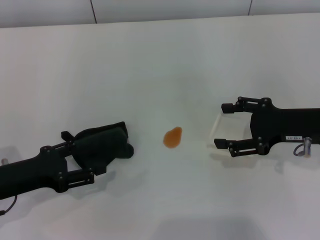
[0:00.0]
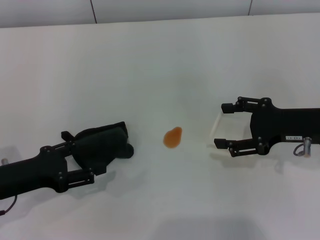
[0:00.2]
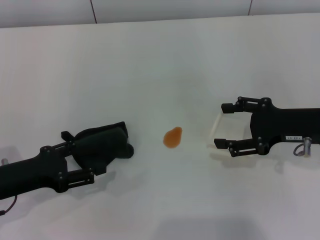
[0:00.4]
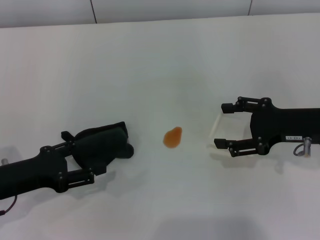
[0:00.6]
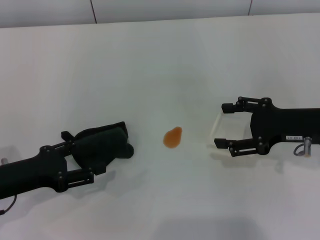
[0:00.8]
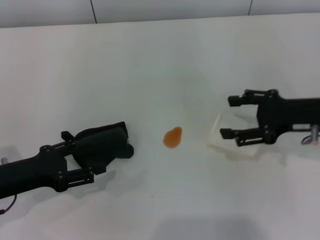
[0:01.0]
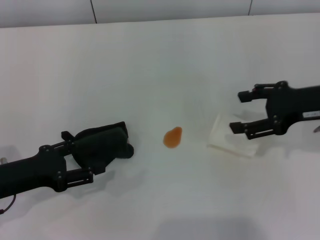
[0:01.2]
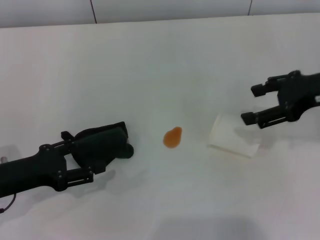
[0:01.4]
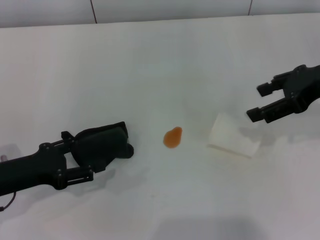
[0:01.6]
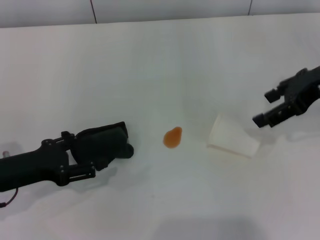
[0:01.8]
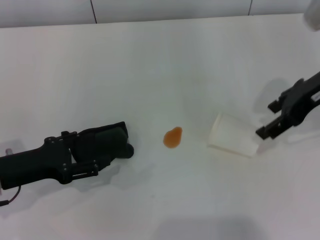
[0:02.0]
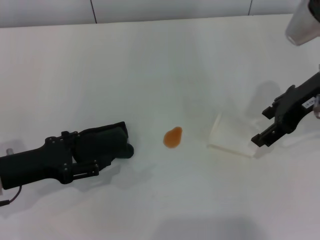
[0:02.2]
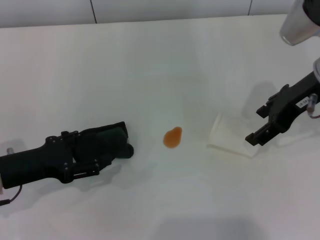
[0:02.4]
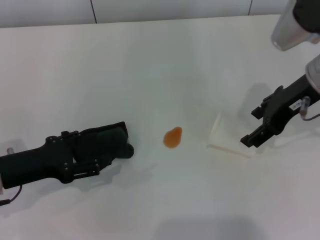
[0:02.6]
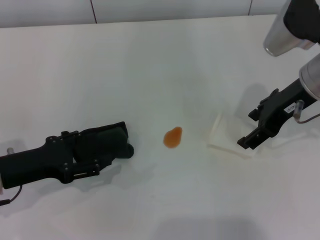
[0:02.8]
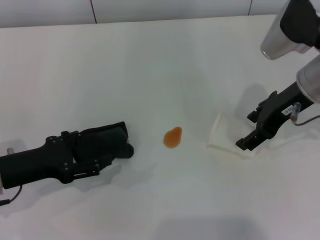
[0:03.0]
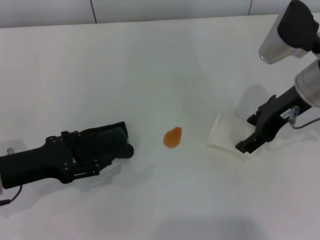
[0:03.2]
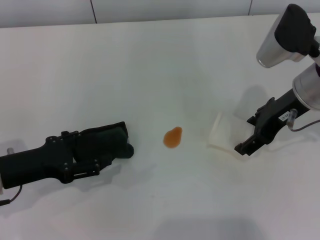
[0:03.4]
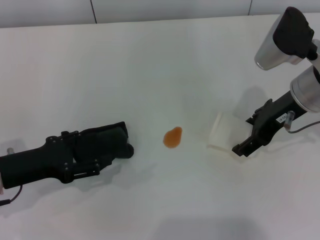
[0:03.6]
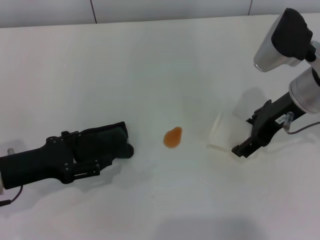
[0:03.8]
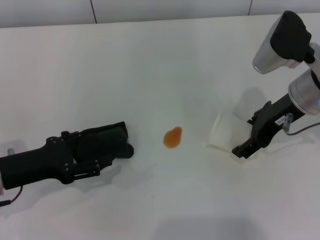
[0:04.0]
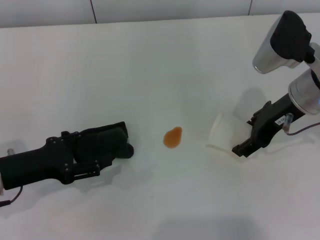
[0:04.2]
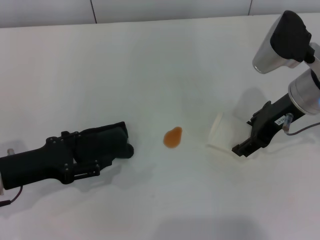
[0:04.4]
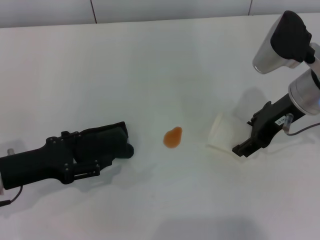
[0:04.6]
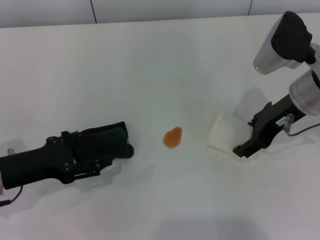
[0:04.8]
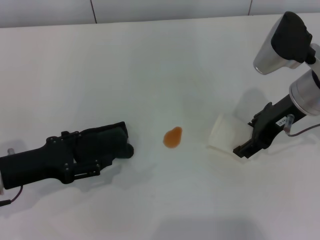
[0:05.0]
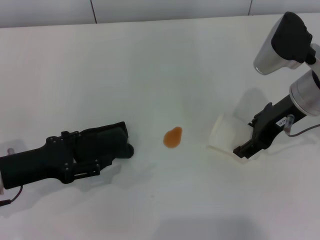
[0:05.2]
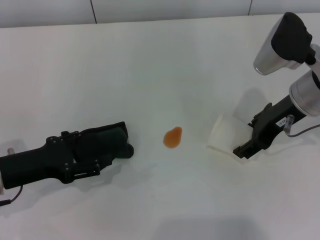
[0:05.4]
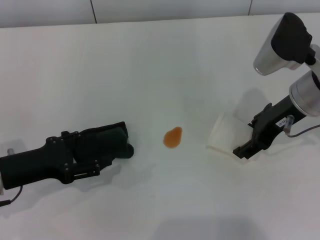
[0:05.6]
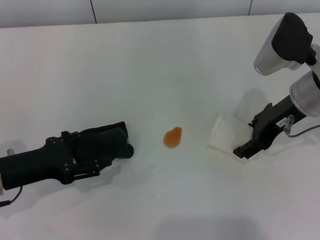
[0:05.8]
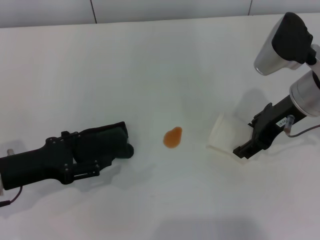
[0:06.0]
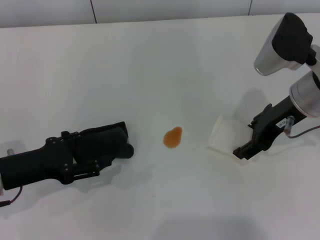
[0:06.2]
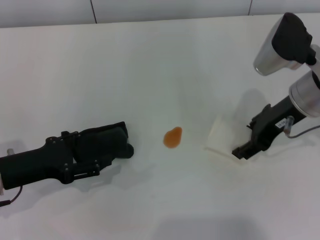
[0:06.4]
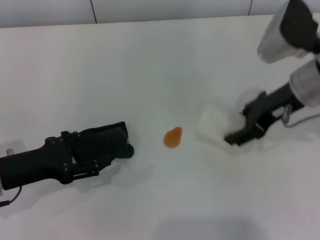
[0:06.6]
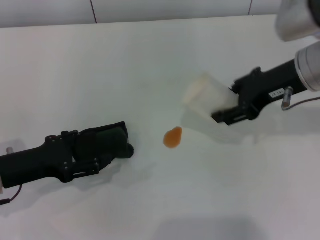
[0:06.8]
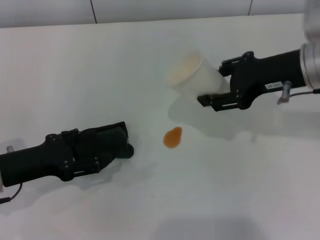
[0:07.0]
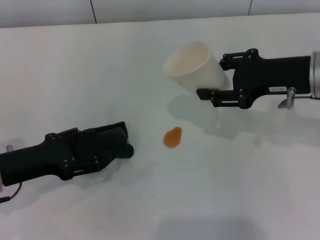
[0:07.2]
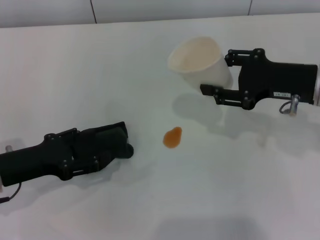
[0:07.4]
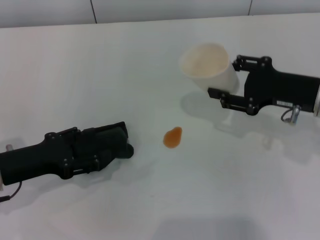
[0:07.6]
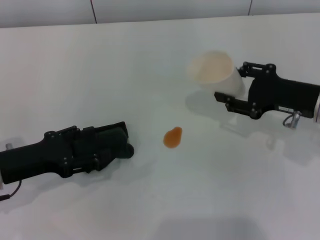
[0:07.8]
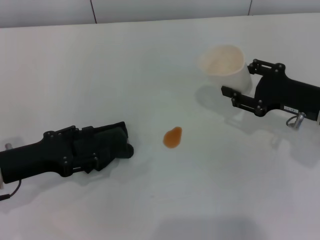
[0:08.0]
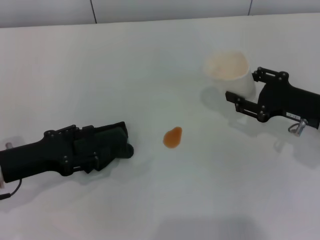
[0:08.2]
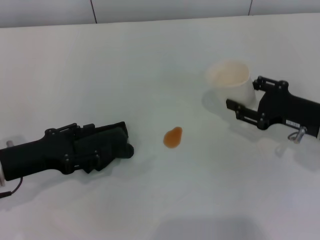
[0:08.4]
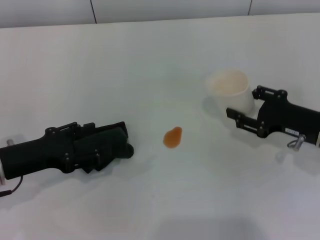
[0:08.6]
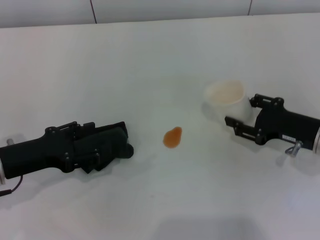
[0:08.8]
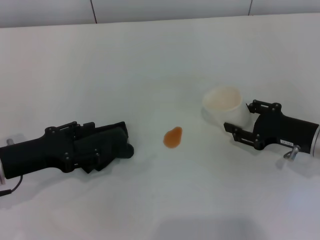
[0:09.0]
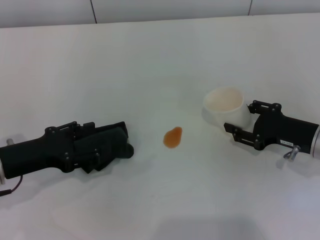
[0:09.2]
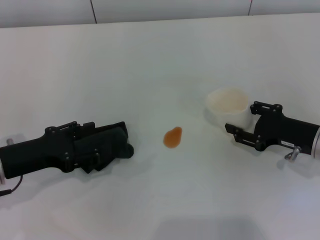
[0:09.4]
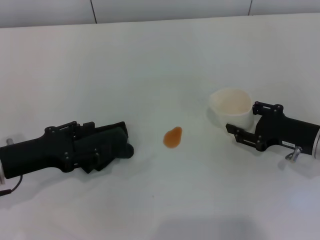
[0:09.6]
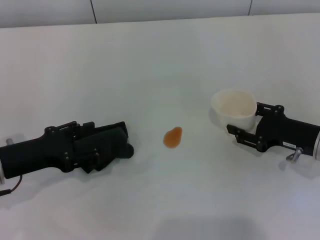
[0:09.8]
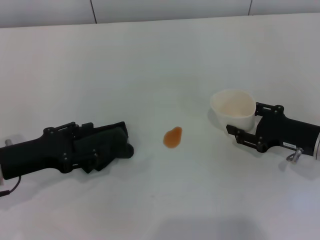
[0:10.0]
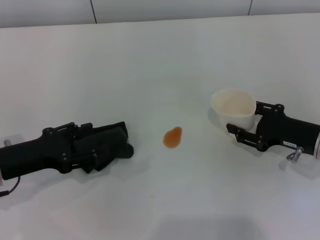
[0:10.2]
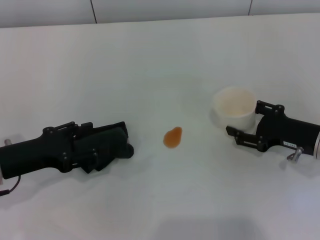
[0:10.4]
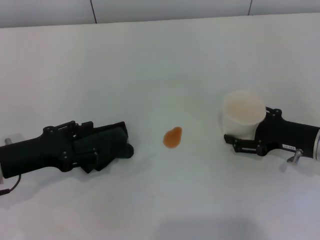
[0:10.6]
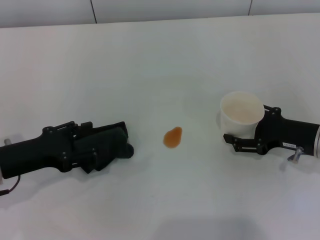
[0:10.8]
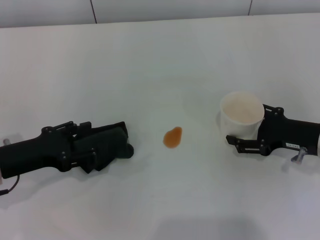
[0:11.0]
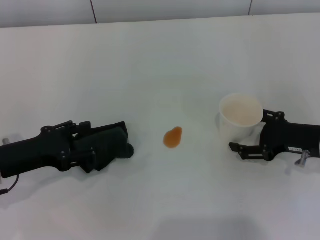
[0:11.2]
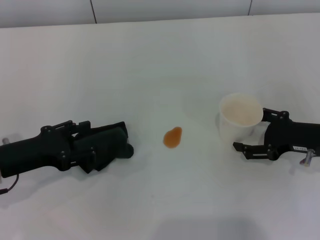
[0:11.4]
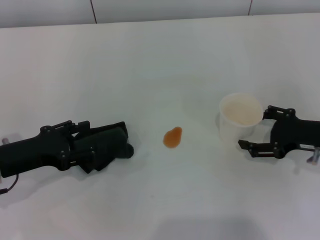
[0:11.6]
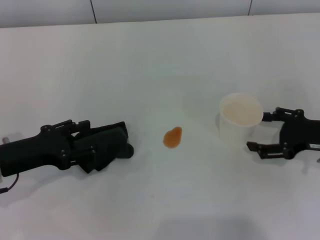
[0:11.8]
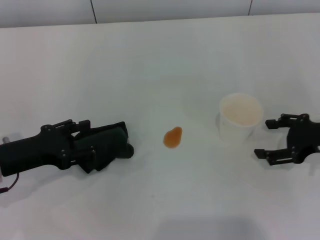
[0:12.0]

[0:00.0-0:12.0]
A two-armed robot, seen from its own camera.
Step, 0:00.0 to 0:04.4: Grasp the paper cup with the right gripper.
Step, 0:04.8 to 0:11.8: Stand the paper cup upright with the right gripper.
0:00.0 to 0:01.6: The right gripper goes roughly 10 cm upward.
0:01.6 to 0:03.0: The right gripper shifts some 5 cm to the left.
0:03.0 to 0:04.4: The right gripper closes.
0:04.4 to 0:06.0: The two grippers keep their place.
0:06.0 to 0:07.6: The right gripper changes place by some 5 cm, and closes.
0:07.6 to 0:09.0: The right gripper shifts roughly 10 cm downward.
0:09.0 to 0:10.4: Both grippers stay about where they are.
0:10.4 to 0:12.0: The right gripper shifts roughly 5 cm upward, and opens.

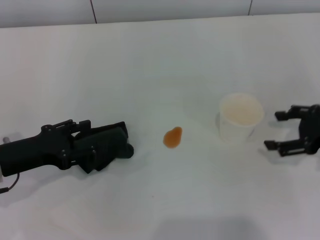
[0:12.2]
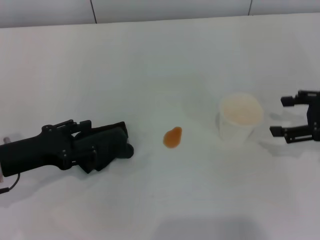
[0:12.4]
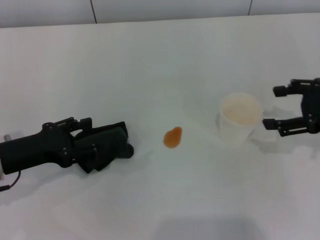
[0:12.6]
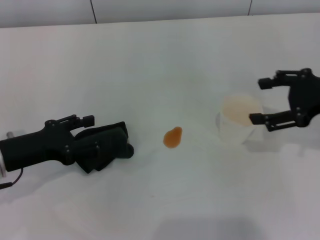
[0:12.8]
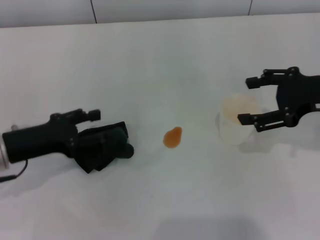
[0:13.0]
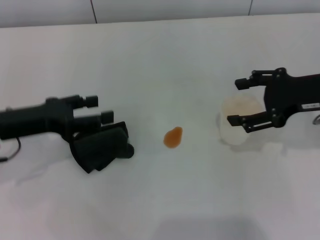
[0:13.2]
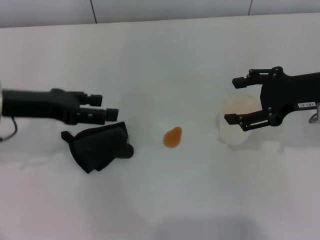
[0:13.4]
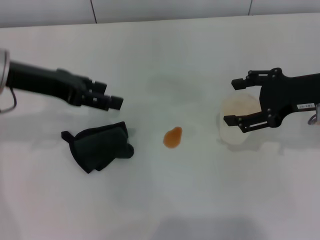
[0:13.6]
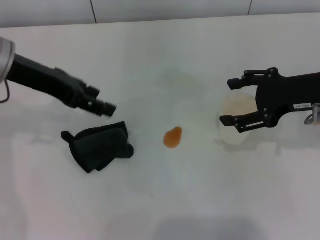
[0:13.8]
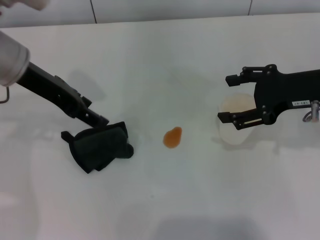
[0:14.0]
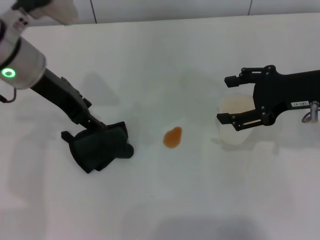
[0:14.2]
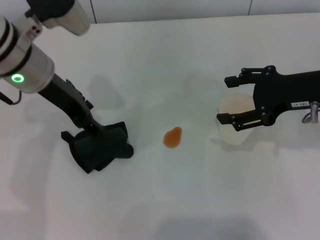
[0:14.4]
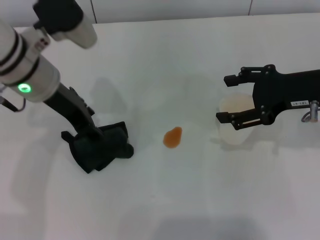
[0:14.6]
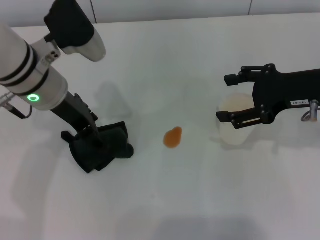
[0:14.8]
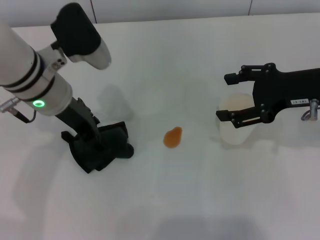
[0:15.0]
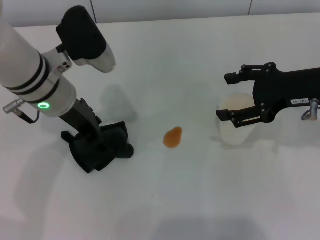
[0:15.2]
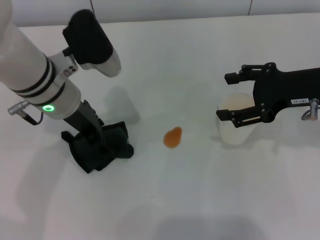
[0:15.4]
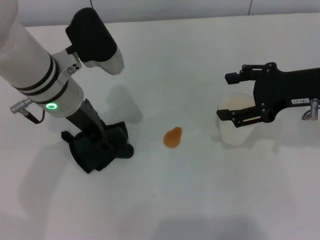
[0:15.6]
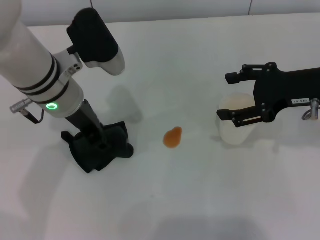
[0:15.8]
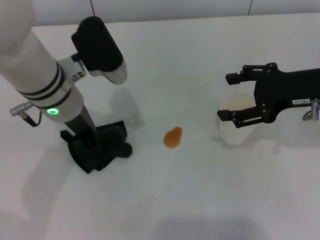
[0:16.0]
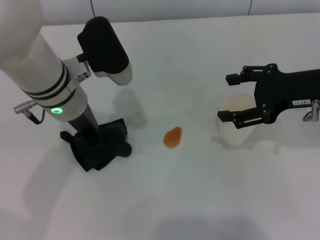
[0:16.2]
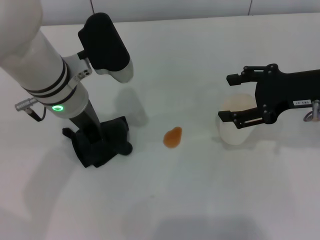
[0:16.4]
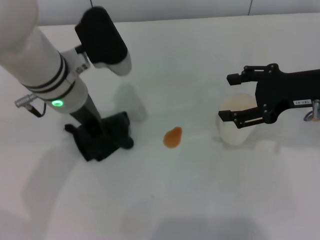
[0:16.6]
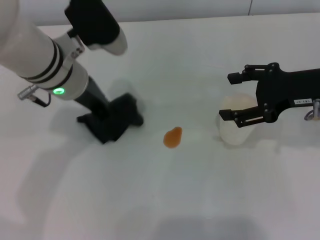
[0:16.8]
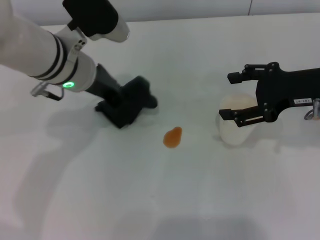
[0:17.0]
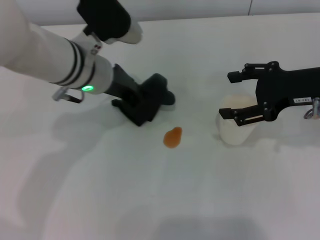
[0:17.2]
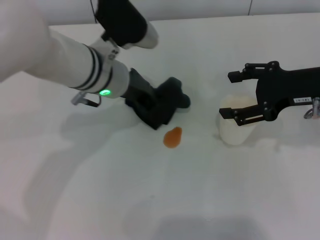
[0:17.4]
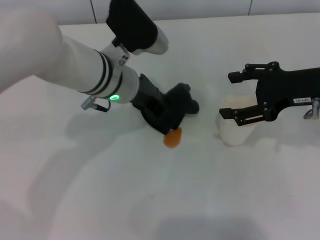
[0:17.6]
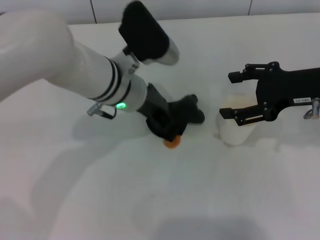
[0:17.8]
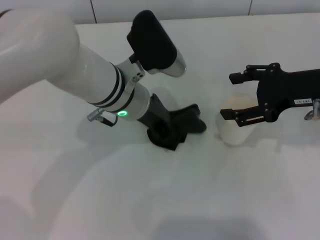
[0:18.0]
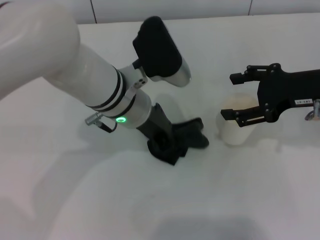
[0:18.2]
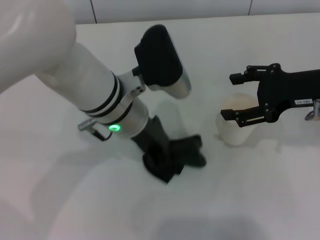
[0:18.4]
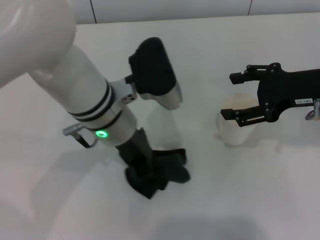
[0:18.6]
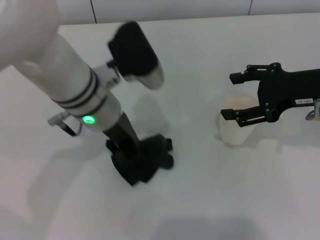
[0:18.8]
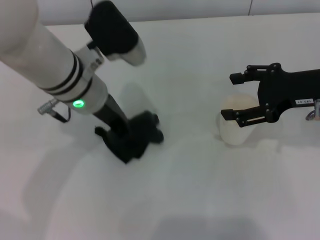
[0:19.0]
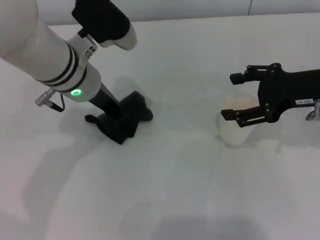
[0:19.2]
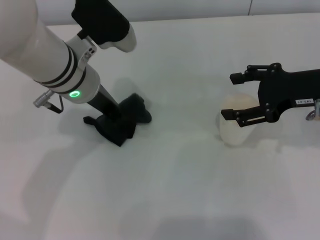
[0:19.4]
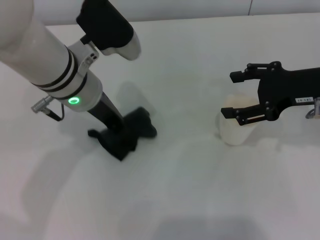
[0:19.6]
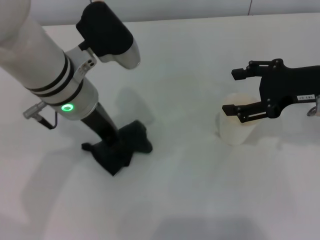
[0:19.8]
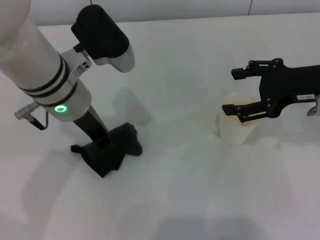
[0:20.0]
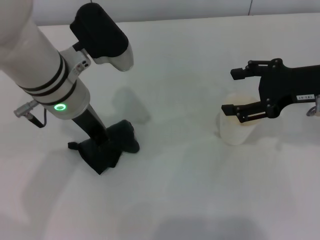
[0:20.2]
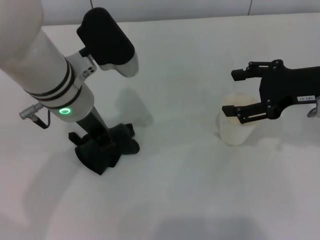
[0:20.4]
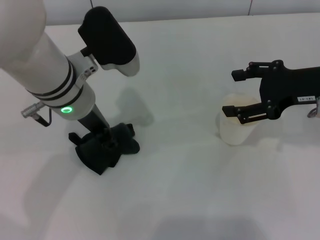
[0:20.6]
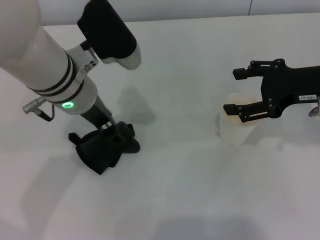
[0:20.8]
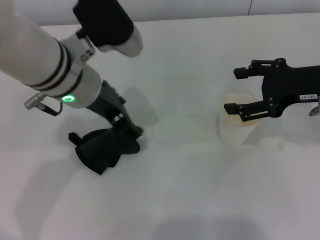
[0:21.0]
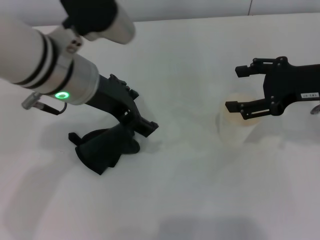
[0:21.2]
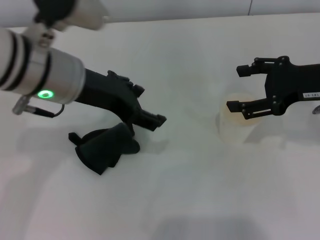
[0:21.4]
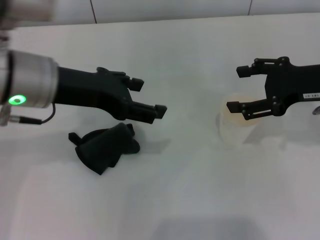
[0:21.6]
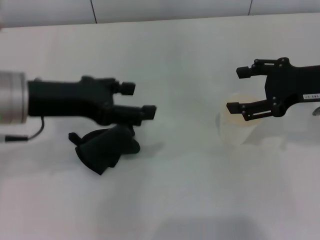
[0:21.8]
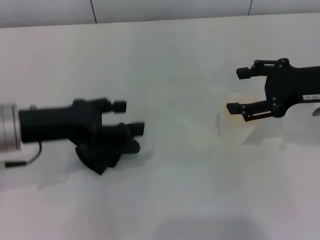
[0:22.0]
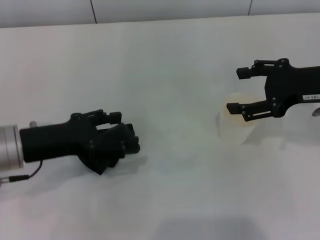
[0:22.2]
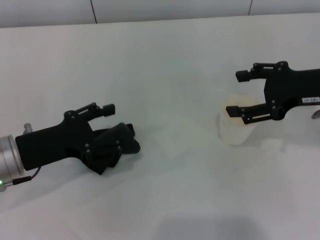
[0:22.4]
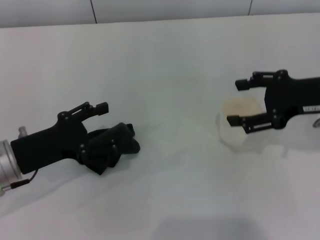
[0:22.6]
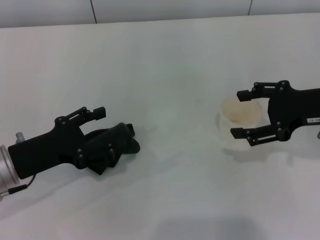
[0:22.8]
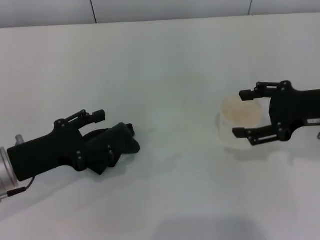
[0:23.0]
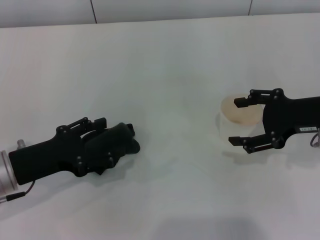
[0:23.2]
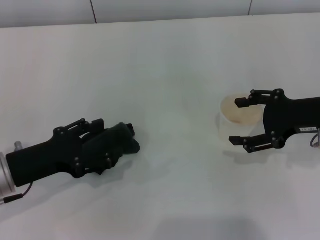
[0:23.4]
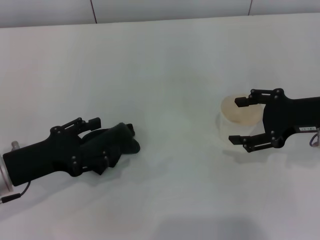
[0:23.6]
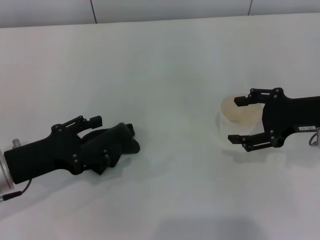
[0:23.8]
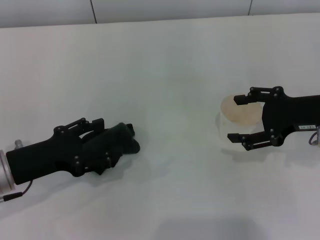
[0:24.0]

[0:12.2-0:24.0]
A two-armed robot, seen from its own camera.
Step, 0:12.2 to 0:16.4: Grasp the rag with the left gripper.
Step, 0:16.8 to 0:20.0: Wipe the stains off the table with the left gripper.
Step, 0:20.2 to 0:21.0: Place the rag on the table with the left gripper.
0:12.2 to 0:13.6: The right gripper is displaced to the left and upward by about 10 cm. Meanwhile the left gripper is displaced upward and forward by roughly 15 cm.
0:13.6 to 0:15.2: The left gripper is displaced to the right by about 10 cm.
0:15.2 to 0:16.6: The left gripper closes.
0:16.6 to 0:18.2: The left gripper travels to the right by approximately 5 cm.
0:18.2 to 0:19.6: The left gripper heads to the left, covering roughly 5 cm.
0:19.6 to 0:21.0: The left gripper opens up.
0:21.0 to 0:22.6: The left gripper travels to the left, downward and backward by some 20 cm.
0:22.6 to 0:24.0: The grippers make only small movements.
